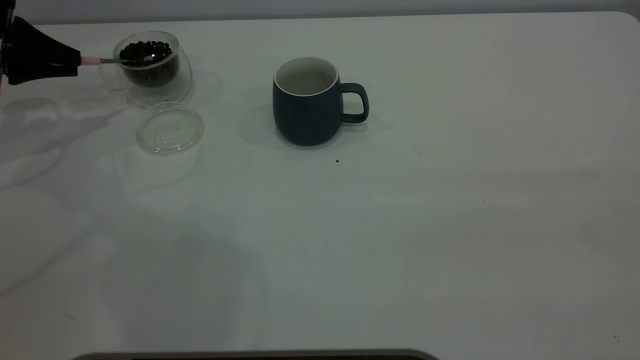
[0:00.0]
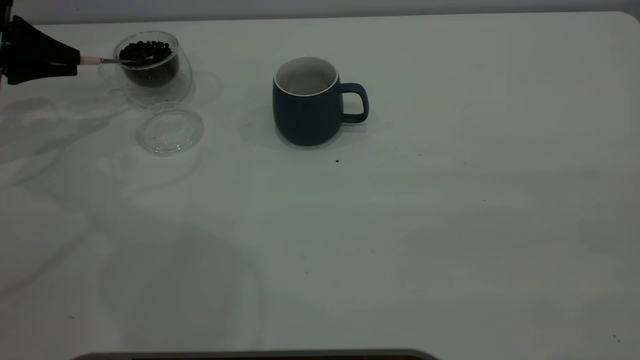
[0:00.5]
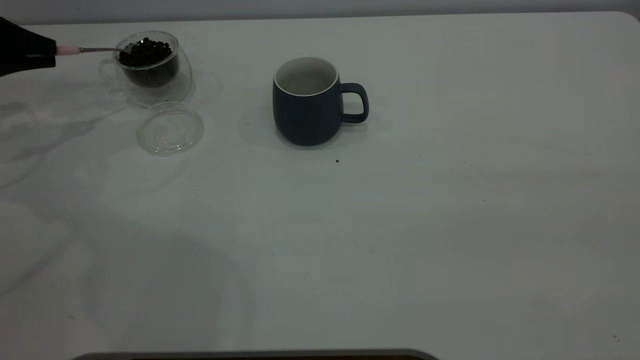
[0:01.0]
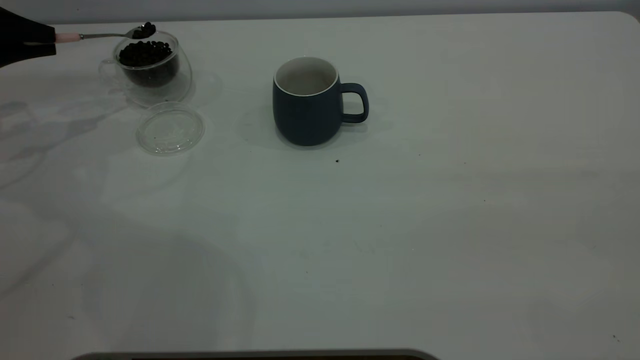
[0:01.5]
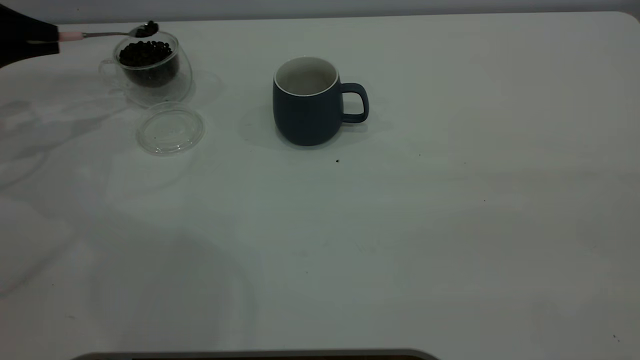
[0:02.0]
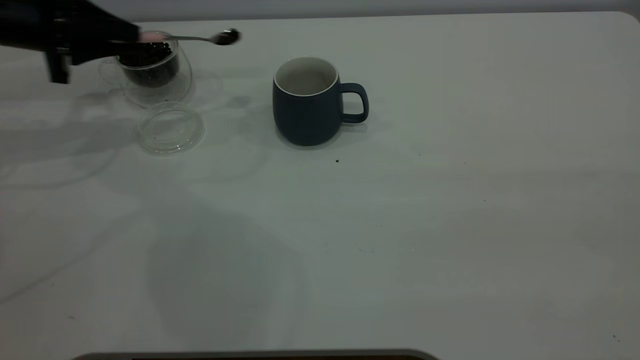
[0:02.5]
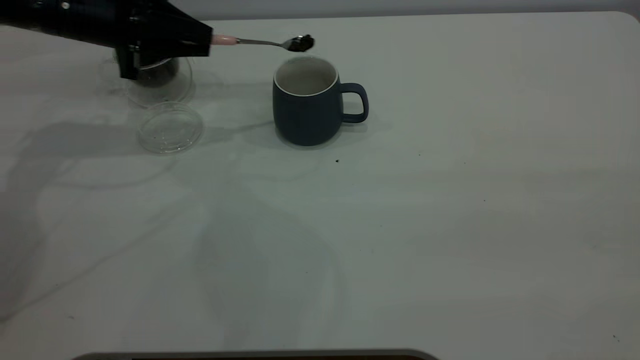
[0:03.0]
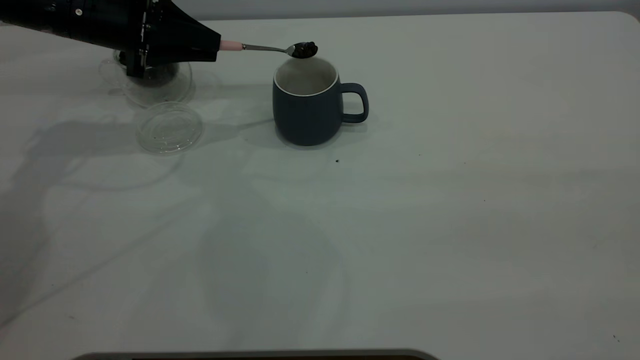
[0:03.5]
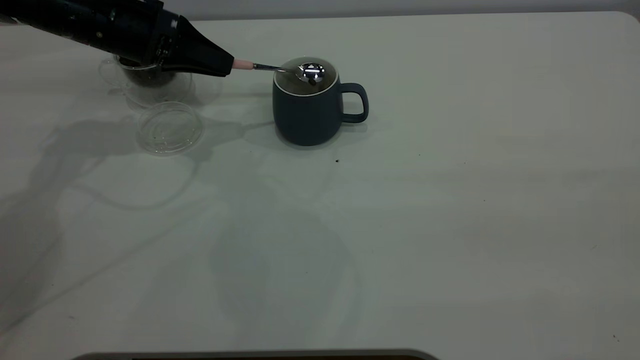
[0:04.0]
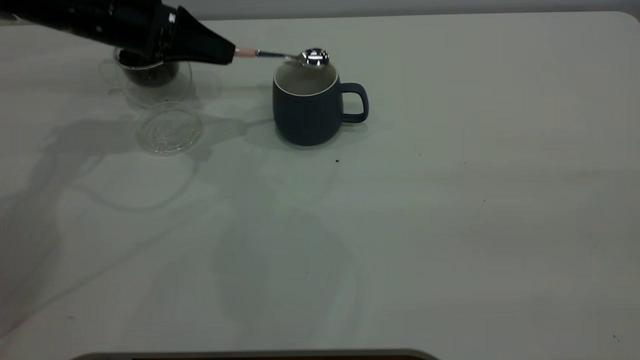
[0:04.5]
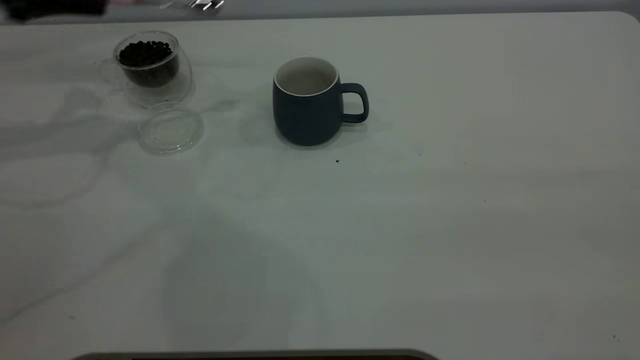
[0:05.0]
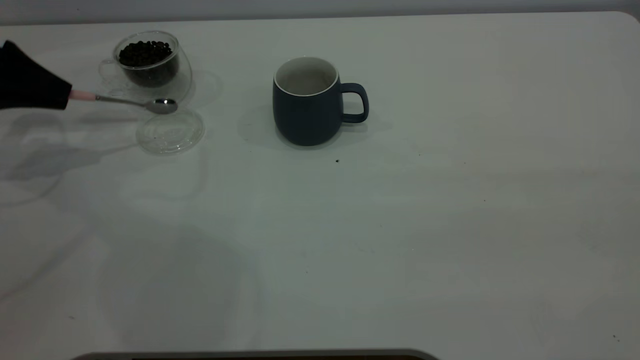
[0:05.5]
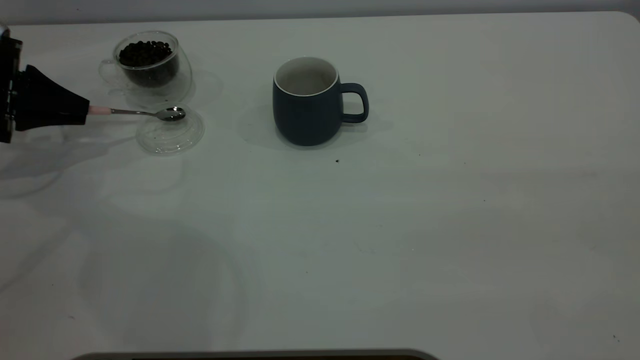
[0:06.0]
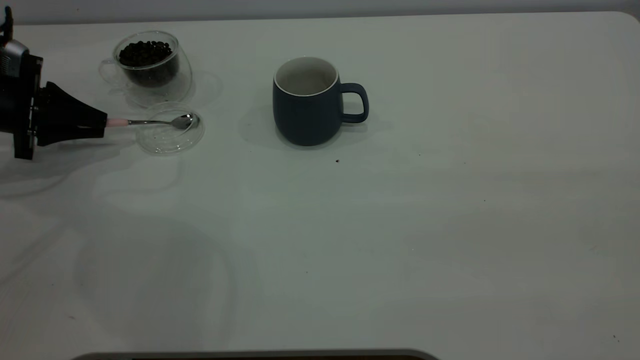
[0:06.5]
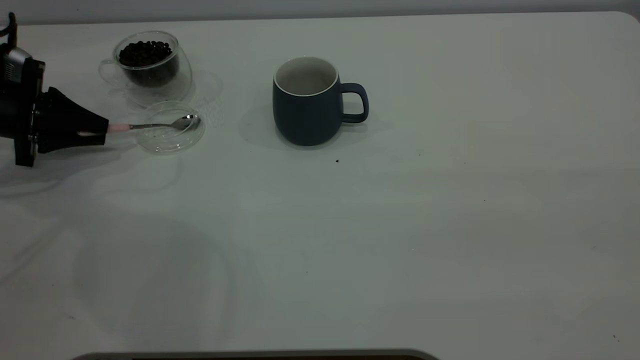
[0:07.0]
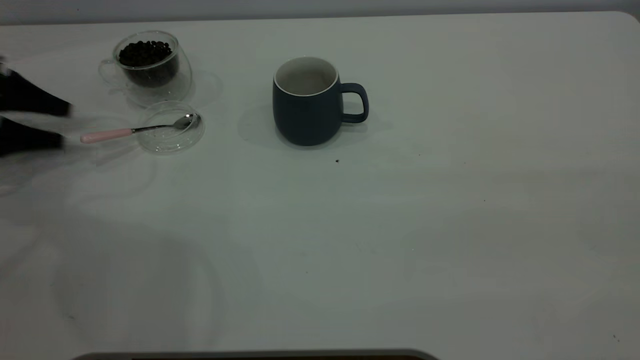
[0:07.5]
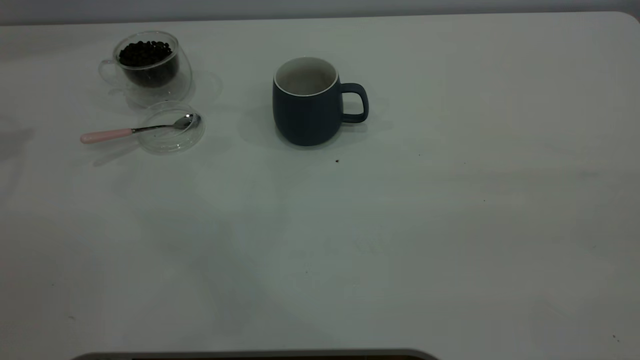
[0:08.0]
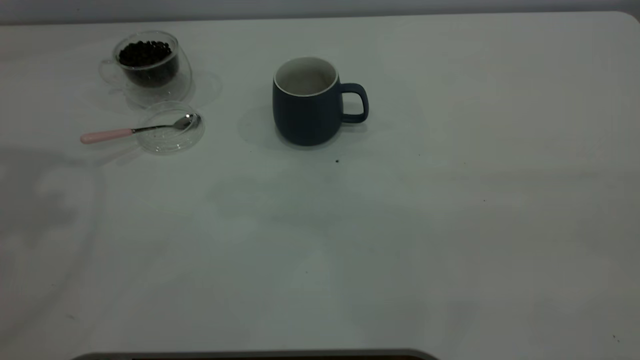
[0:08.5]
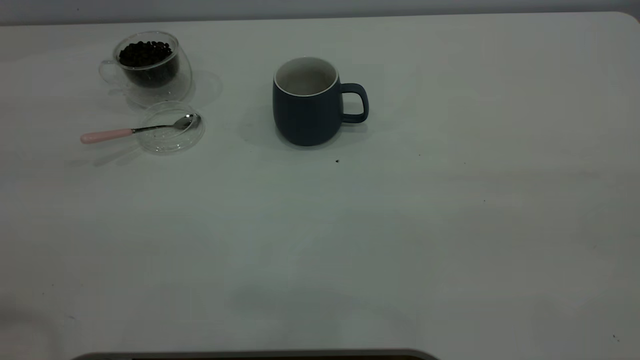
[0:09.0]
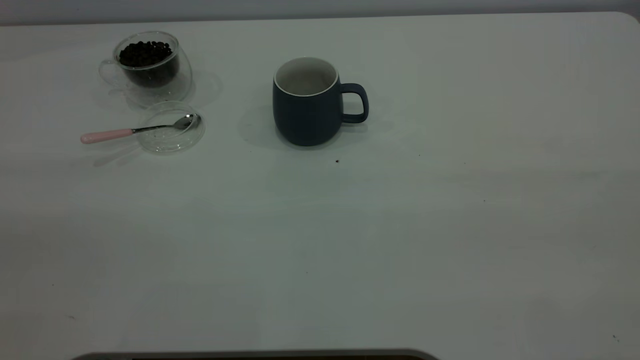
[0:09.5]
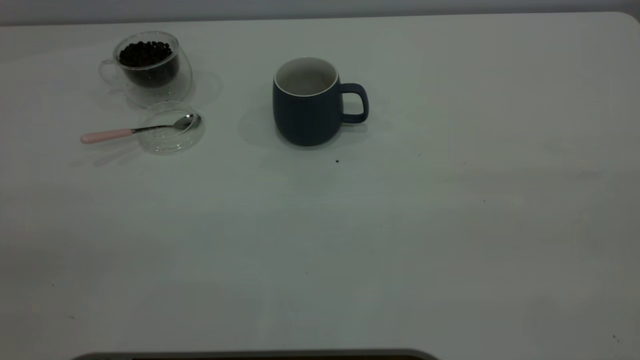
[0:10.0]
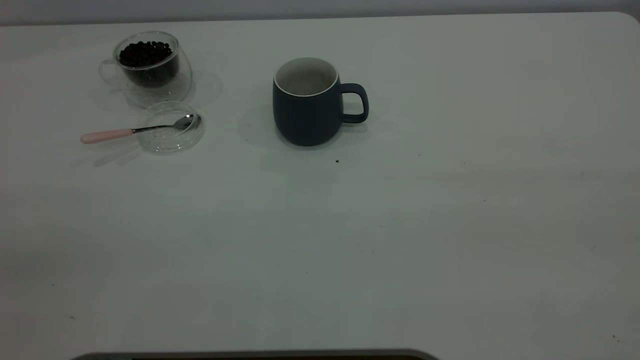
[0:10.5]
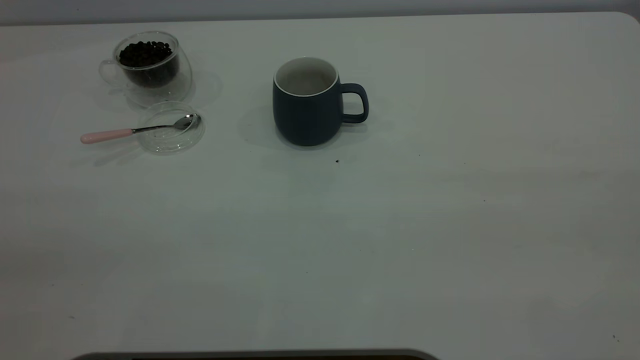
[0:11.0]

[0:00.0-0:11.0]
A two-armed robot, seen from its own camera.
Task of the whole recording: the right gripper place the grey cup in the center of the table, the left gripper take the pink spoon from the cup lid and scoop out the coffee beans from the coffee cup and put them into the grey cup, the left gripper put the spoon back into the cup lid.
Step, 0:00.0 to 0:04.5: Scoop a spoonful of beans into the cup.
Step, 0:05.0 to 0:07.5: Place the spoon back in its original place.
0:00.0 to 0:02.0: The grippers stay close to where they were, moving slightly.
0:02.0 to 0:03.5: The left gripper shifts about 15 cm to the right.
0:03.5 to 0:05.5: The left gripper travels to the left by approximately 15 cm.
0:05.5 to 0:07.5: The left gripper ends up roughly 5 cm from where it was, and opens.
0:07.5 to 0:09.0: The left gripper goes some 40 cm upward, backward and to the right.
